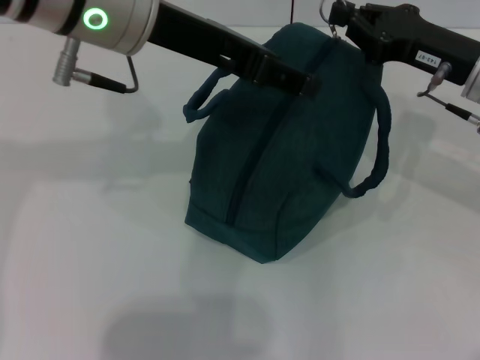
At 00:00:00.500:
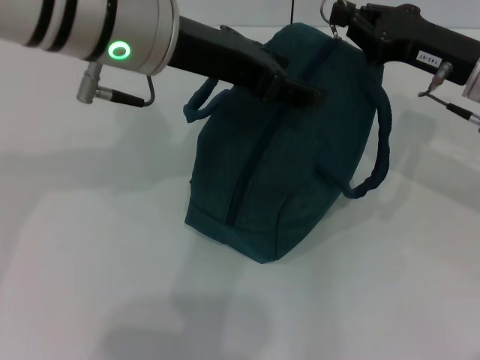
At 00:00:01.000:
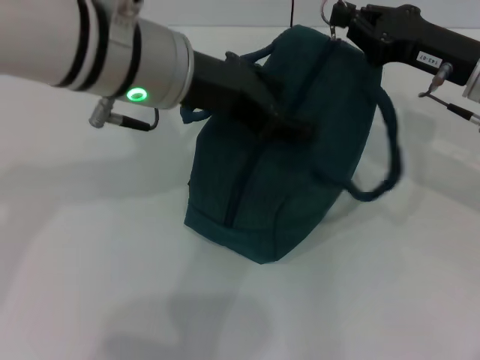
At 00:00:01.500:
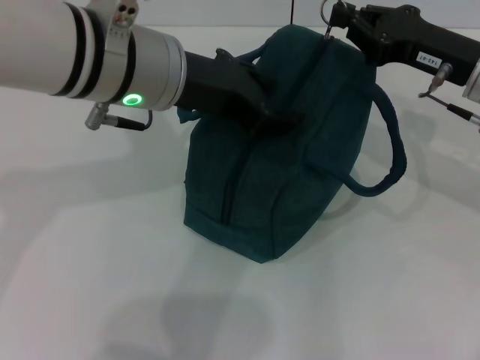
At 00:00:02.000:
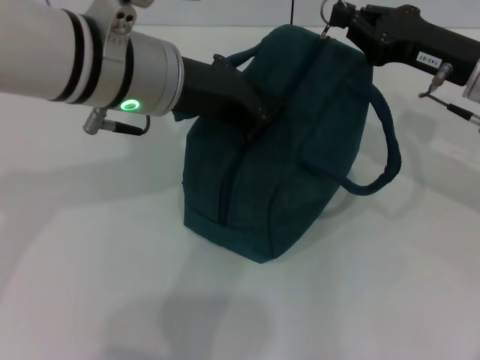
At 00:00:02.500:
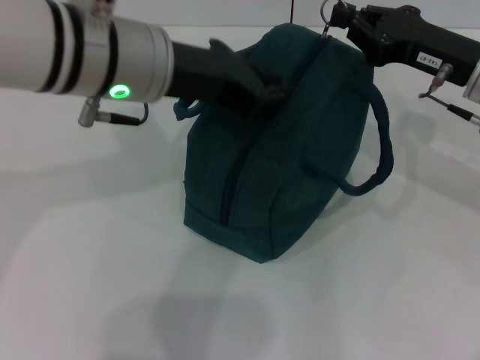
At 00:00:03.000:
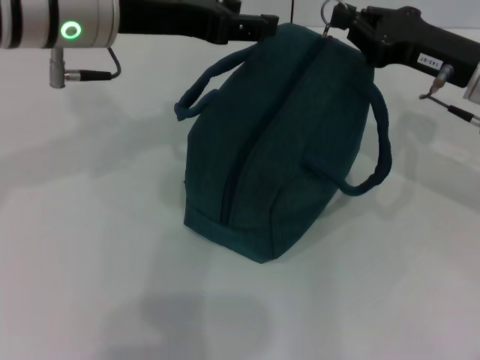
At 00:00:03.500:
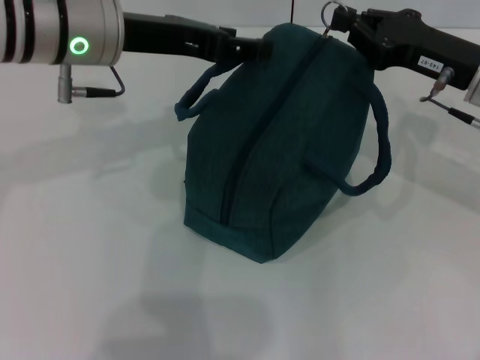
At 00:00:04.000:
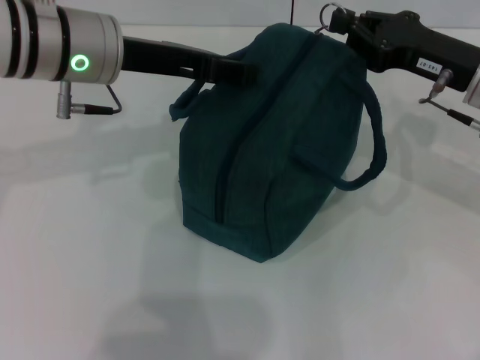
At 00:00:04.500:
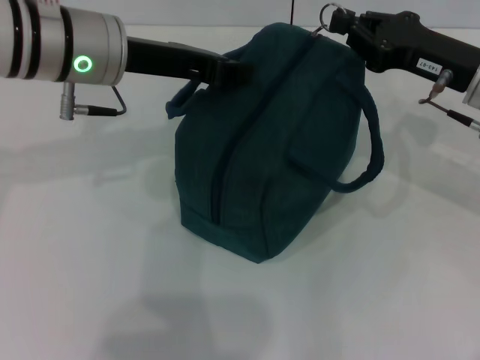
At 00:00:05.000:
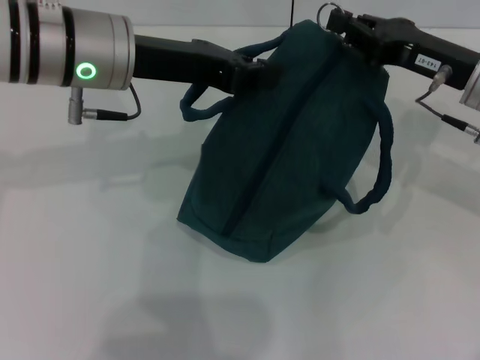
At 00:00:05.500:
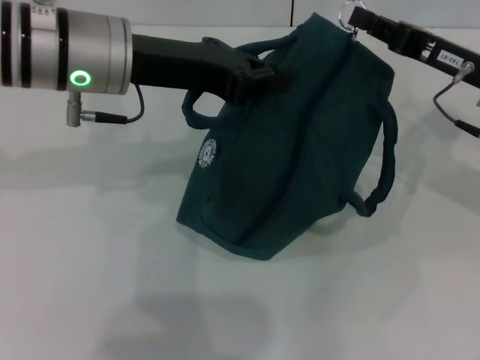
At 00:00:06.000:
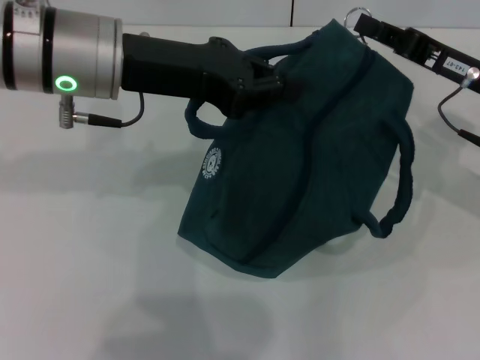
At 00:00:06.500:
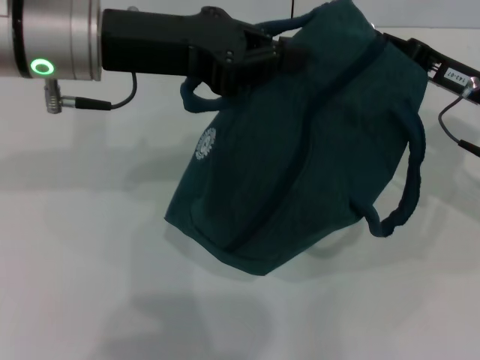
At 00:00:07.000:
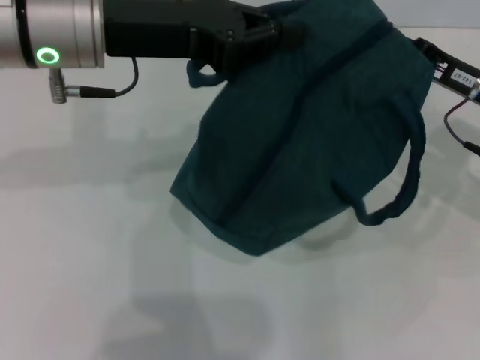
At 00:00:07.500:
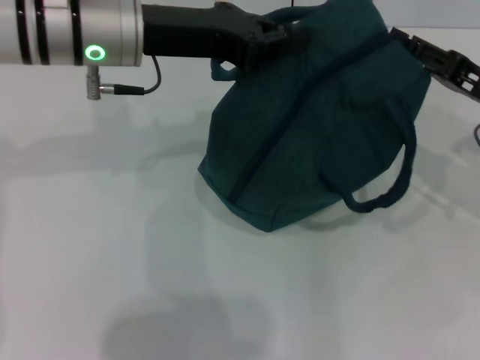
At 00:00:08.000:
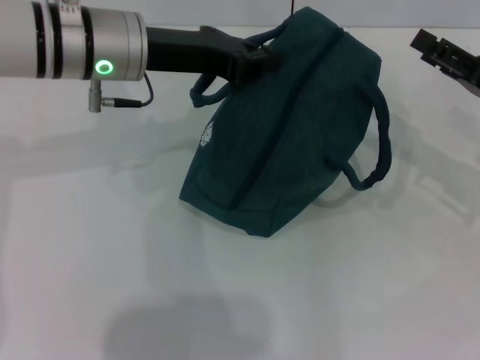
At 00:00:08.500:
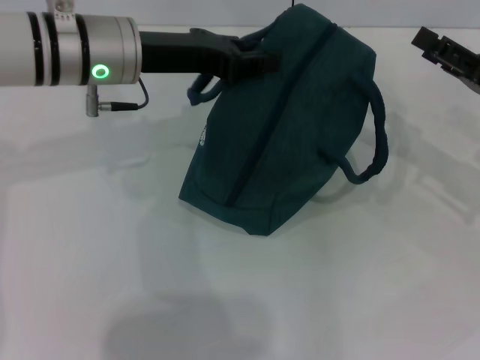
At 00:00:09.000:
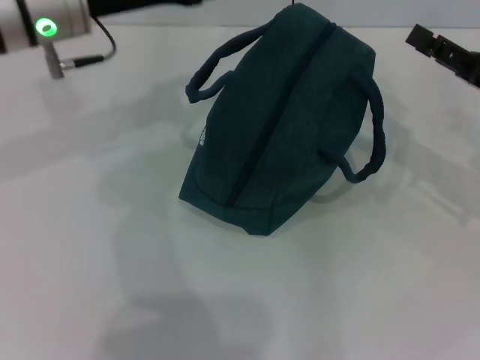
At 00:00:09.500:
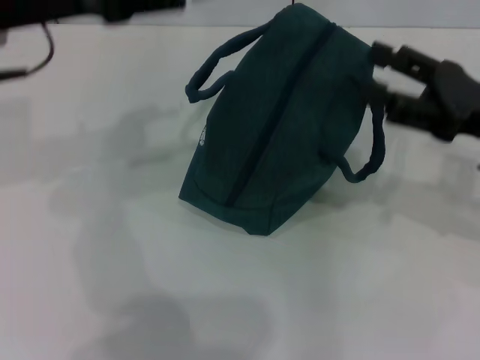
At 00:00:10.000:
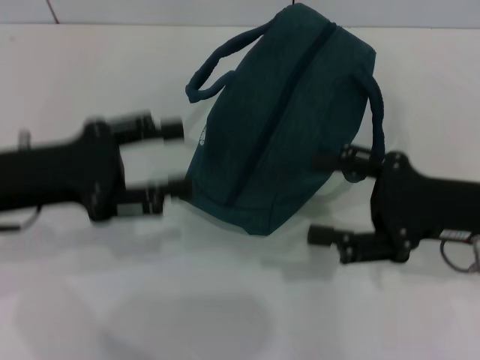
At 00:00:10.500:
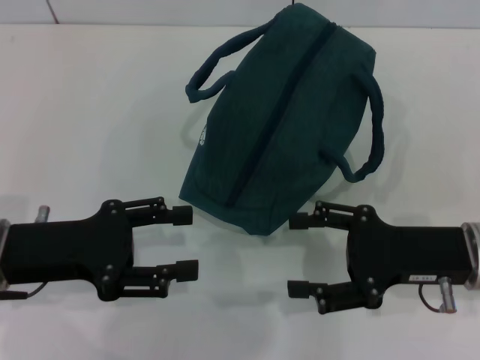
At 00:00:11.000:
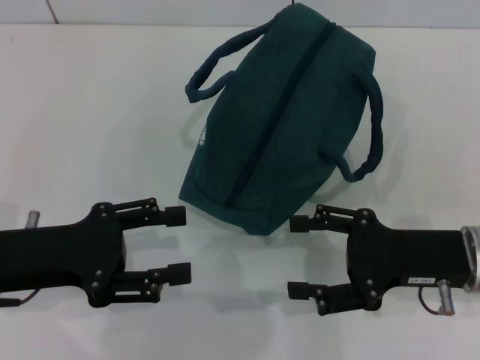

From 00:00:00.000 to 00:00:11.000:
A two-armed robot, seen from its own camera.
Step, from 00:00:00.000 to 00:00:07.500: Zip up the lunch bag with your right hand.
Step, from 00:00:08.000 to 00:00:08.500: Hold the lunch bag with your left hand.
From 00:00:00.000 to 00:00:02.000: The left gripper goes approximately 5 cm downward, and closes up.
From 00:00:02.000 to 00:00:03.500: The left gripper heads to the left, covering roughly 5 cm, and opens.
From 00:00:03.500 to 00:00:05.500: The left gripper closes.
From 00:00:05.500 to 00:00:07.500: The right gripper ends up approximately 5 cm from where it was, and opens.
From 00:00:07.500 to 00:00:09.000: The right gripper opens its fingers; the left gripper opens its fingers.
From 00:00:09.000 to 00:00:11.000: The right gripper travels to the left and backward by roughly 10 cm. The left gripper travels backward, downward and to the left by roughly 20 cm.
